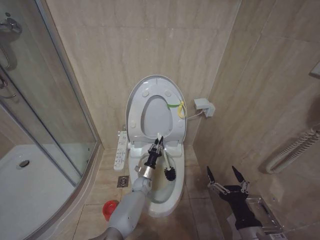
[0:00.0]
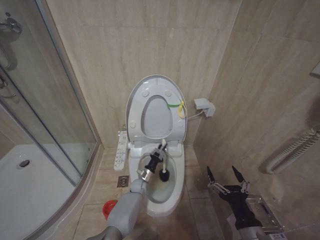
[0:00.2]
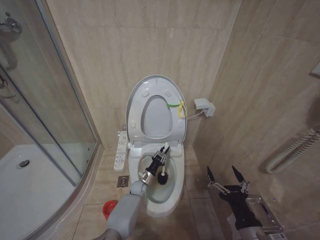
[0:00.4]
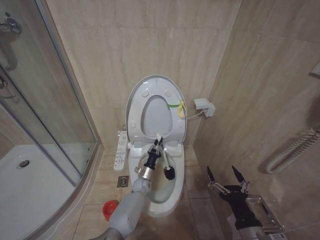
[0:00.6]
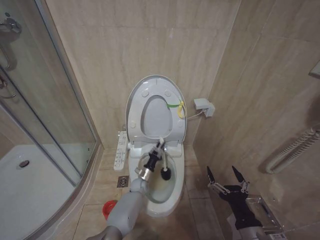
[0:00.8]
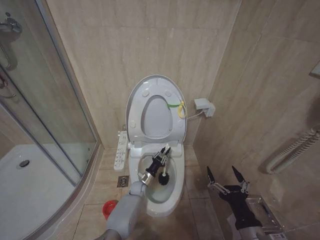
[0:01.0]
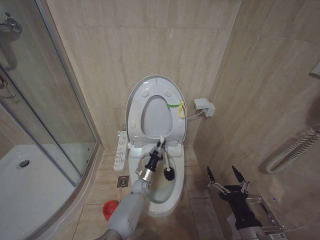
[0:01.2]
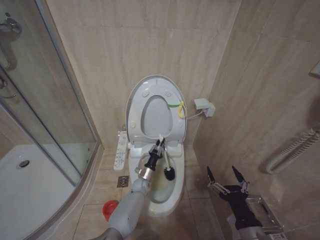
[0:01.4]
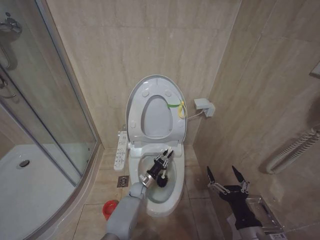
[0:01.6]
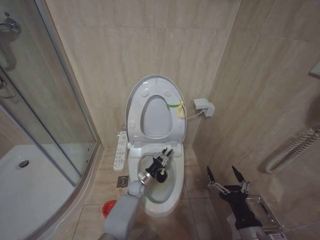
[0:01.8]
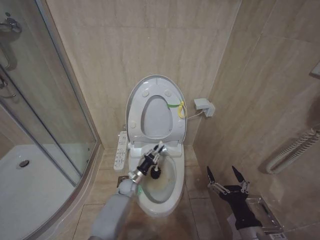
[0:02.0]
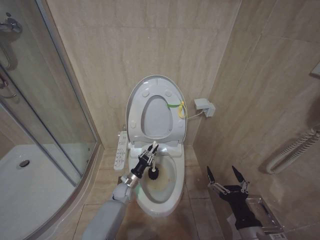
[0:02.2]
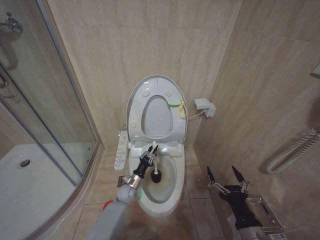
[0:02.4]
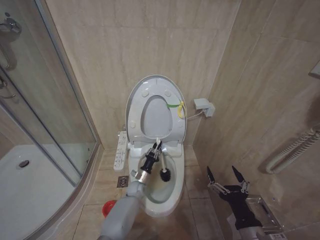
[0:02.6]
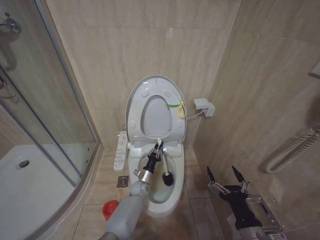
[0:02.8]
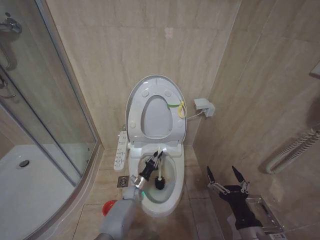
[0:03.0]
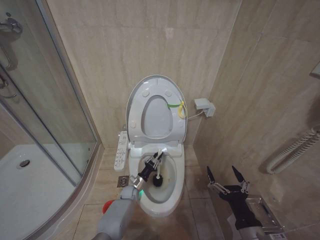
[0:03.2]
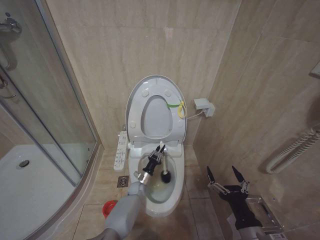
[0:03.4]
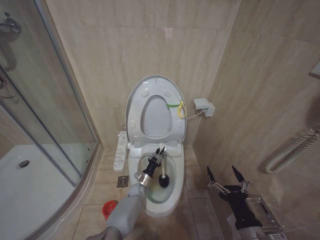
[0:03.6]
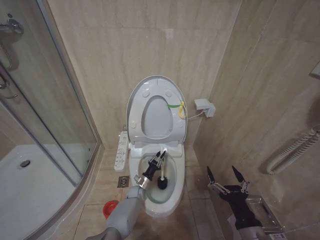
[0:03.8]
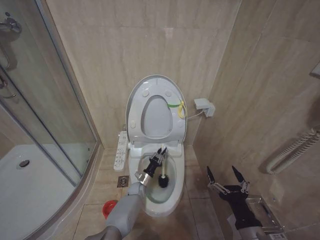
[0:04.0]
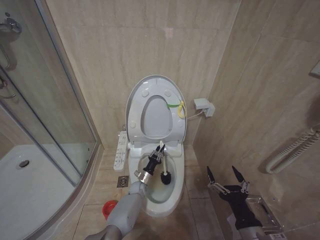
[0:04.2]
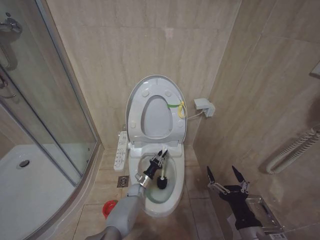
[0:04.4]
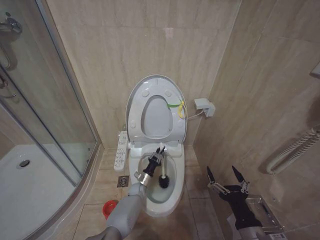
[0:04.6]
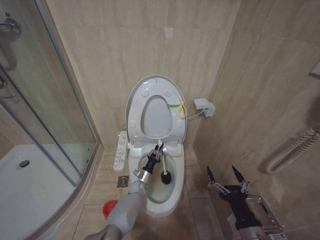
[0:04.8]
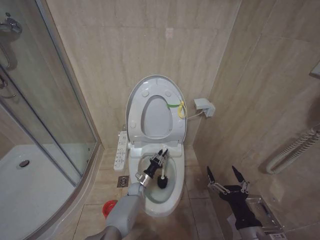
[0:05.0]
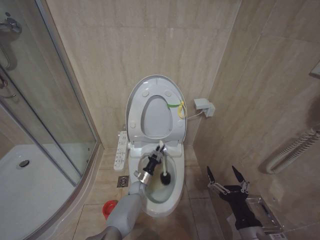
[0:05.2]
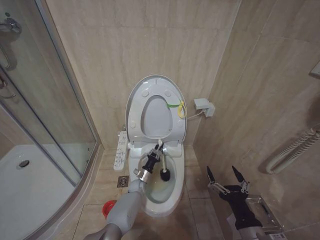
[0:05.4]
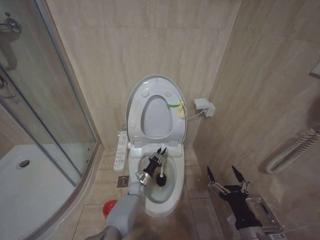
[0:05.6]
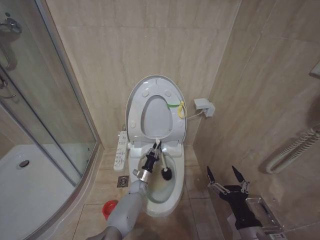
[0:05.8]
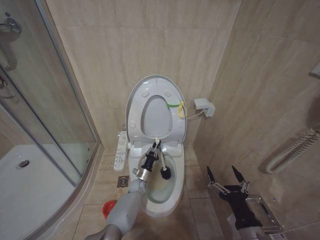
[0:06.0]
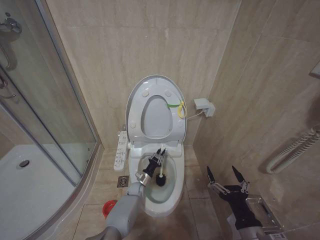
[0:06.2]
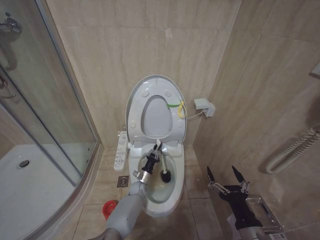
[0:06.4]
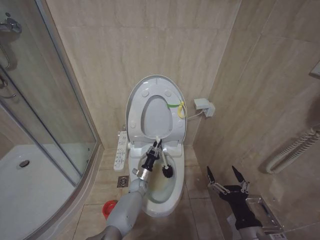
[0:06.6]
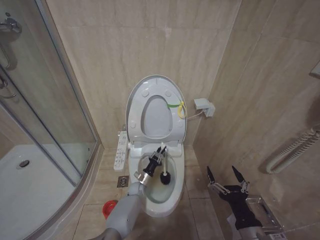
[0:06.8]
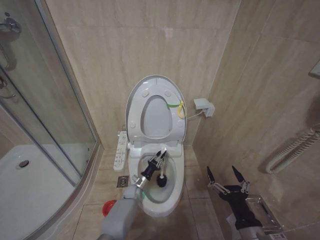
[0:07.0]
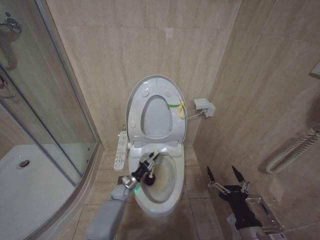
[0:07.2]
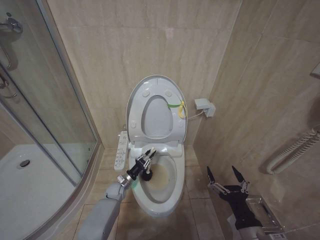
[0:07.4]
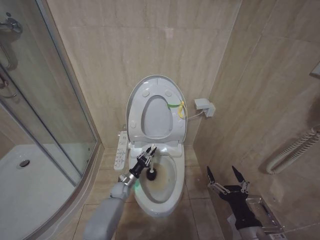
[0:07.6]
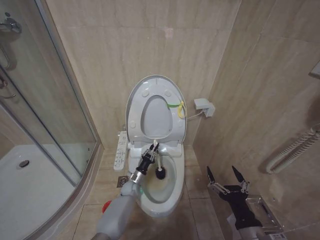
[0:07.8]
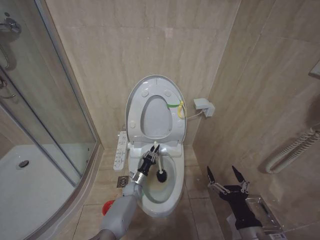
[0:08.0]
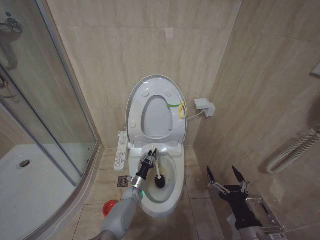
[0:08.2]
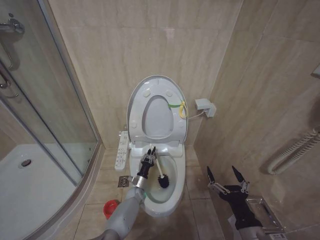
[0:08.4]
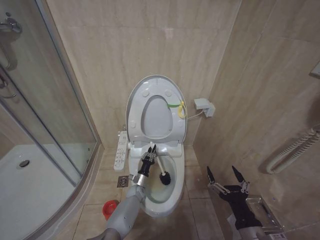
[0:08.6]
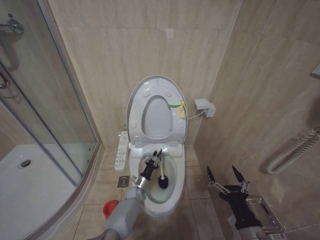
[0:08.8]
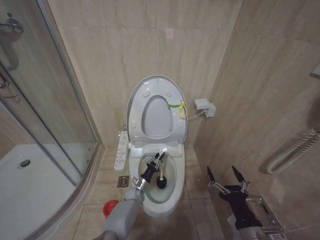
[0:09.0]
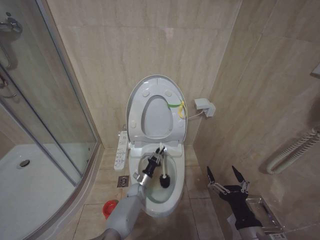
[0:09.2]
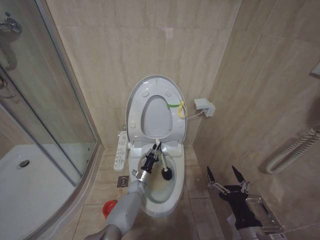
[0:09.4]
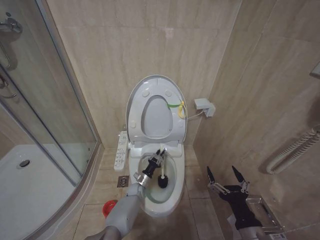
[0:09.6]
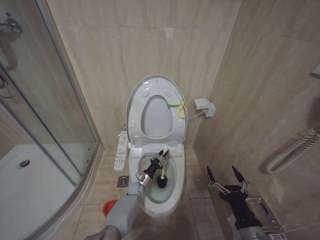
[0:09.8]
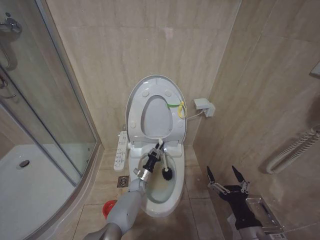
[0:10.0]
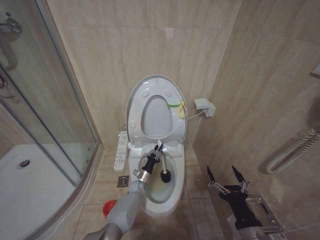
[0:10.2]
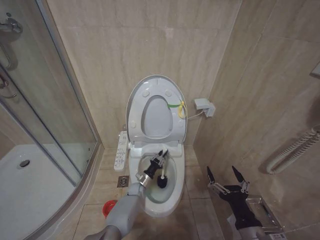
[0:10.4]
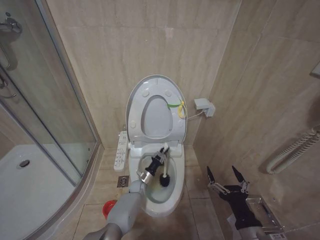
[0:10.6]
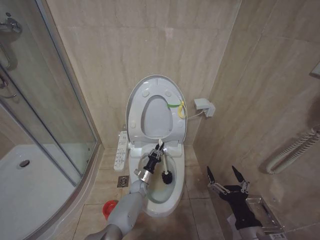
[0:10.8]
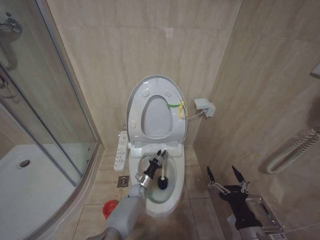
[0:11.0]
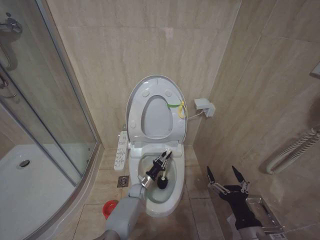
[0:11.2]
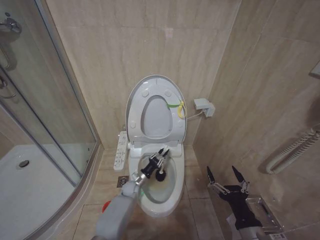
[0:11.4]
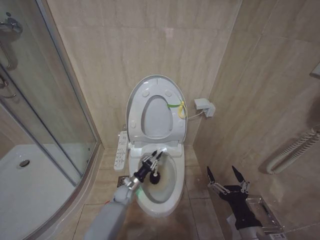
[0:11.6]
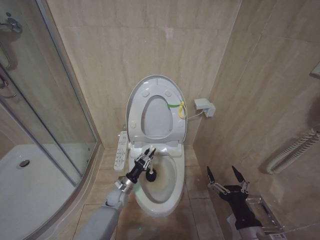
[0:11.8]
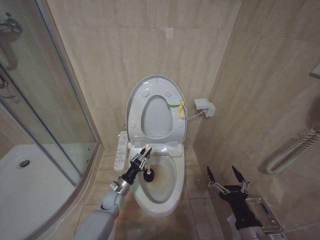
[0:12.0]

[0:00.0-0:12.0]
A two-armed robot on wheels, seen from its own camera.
Task of the whole recording: Open the toilet lid, clean the toilet bowl with a toilet brush, close the toilet lid, and flush.
0:00.0 to 0:01.6: There are only small adjustments of the grippers.
0:01.6 to 0:03.0: The left gripper goes to the left and returns, some 5 cm each way.
0:03.0 to 0:06.0: There are only small adjustments of the grippers.
0:06.0 to 0:07.6: The left gripper heads to the left, covering about 10 cm.
0:07.6 to 0:09.0: The left gripper heads to the right and downward, covering some 10 cm.
0:10.4 to 0:12.0: The left gripper moves to the left, upward and backward, approximately 15 cm.

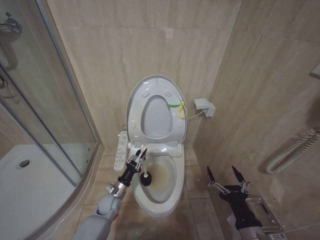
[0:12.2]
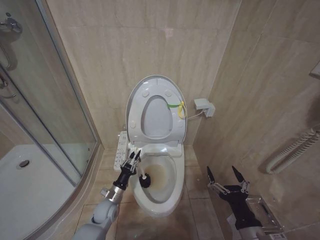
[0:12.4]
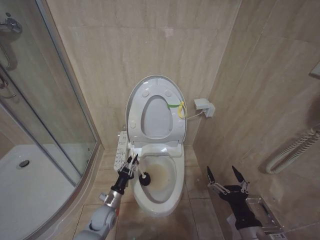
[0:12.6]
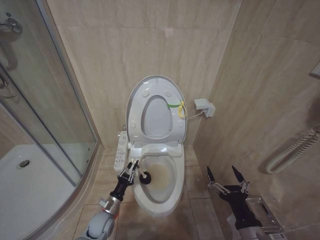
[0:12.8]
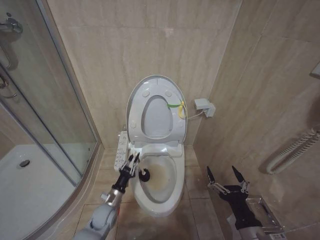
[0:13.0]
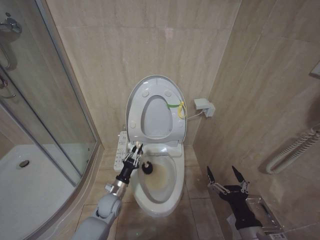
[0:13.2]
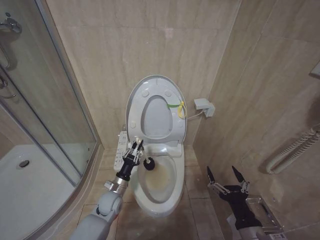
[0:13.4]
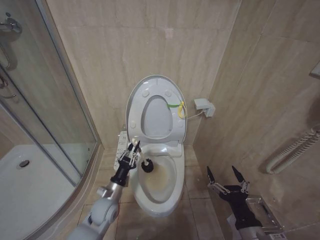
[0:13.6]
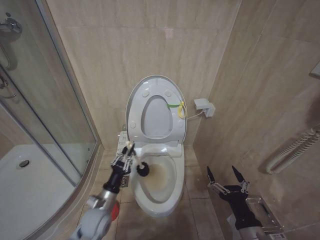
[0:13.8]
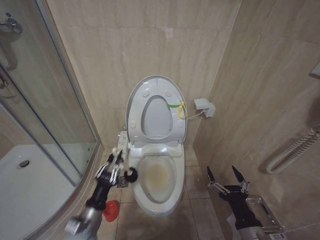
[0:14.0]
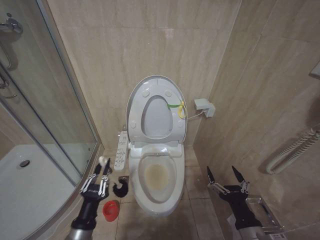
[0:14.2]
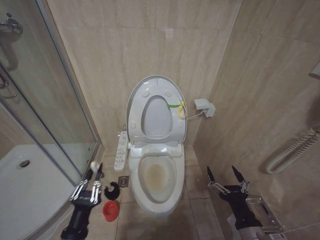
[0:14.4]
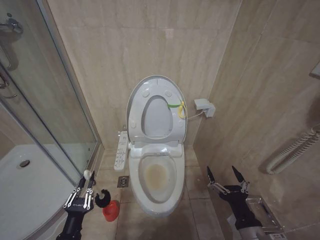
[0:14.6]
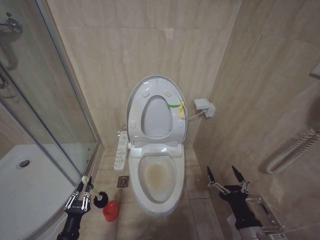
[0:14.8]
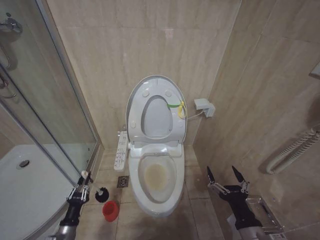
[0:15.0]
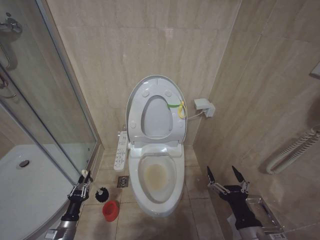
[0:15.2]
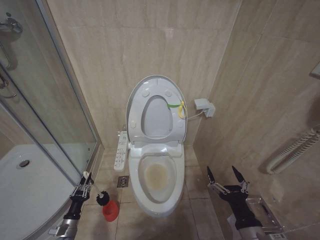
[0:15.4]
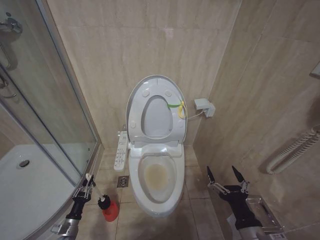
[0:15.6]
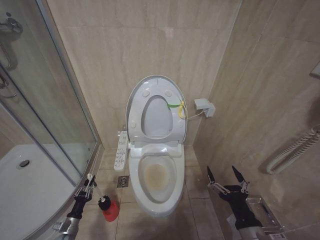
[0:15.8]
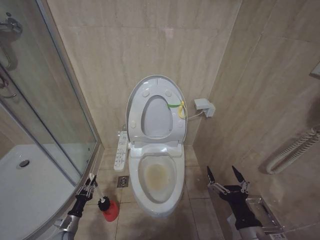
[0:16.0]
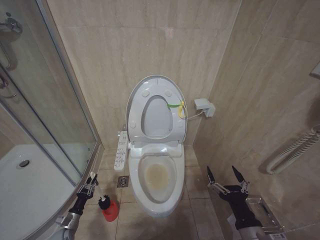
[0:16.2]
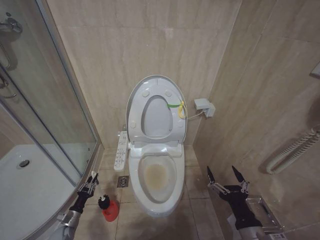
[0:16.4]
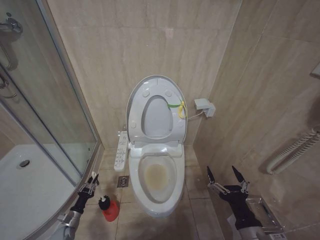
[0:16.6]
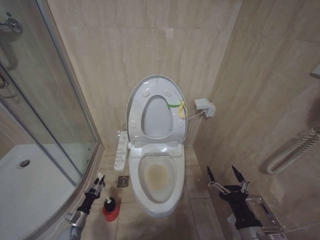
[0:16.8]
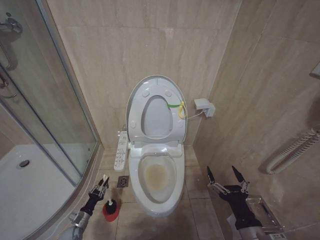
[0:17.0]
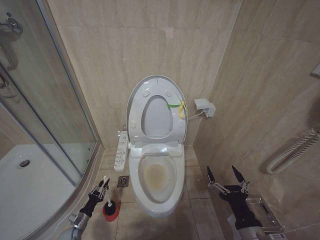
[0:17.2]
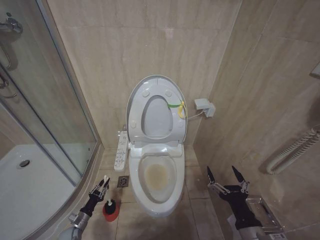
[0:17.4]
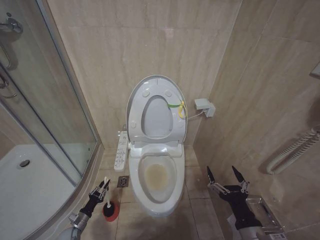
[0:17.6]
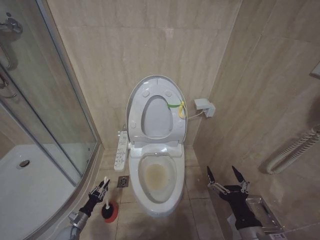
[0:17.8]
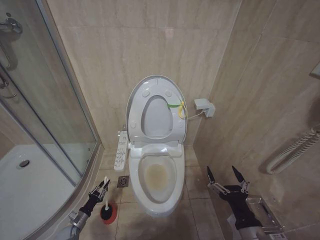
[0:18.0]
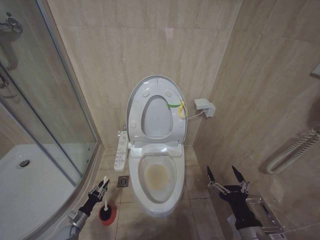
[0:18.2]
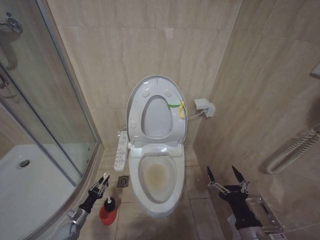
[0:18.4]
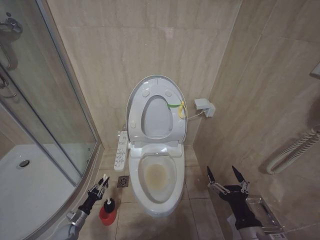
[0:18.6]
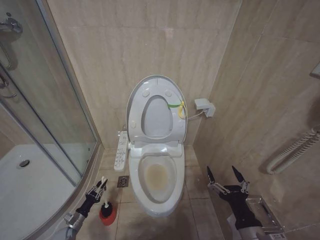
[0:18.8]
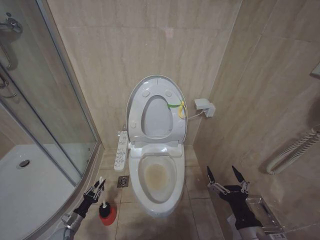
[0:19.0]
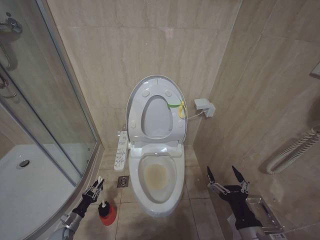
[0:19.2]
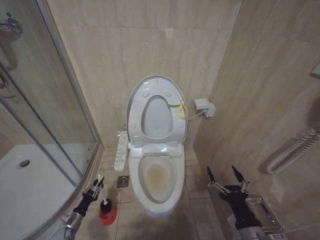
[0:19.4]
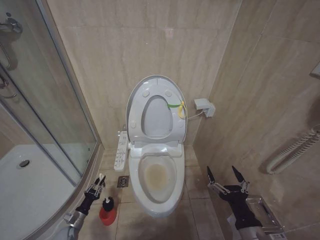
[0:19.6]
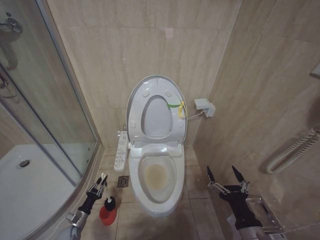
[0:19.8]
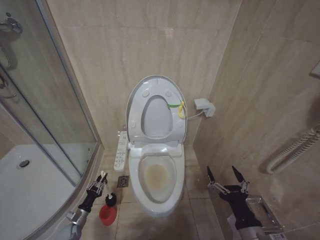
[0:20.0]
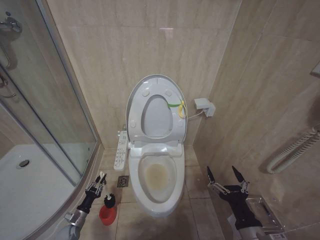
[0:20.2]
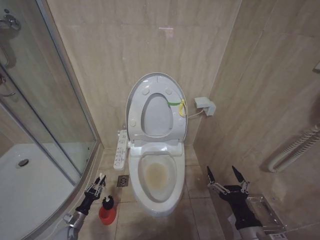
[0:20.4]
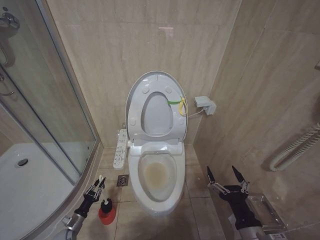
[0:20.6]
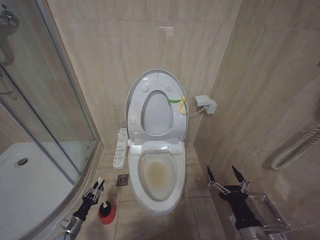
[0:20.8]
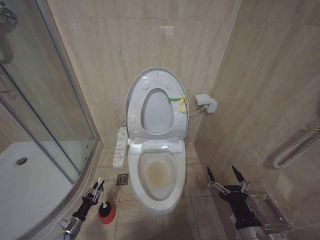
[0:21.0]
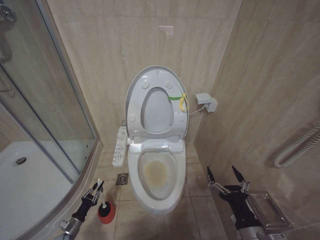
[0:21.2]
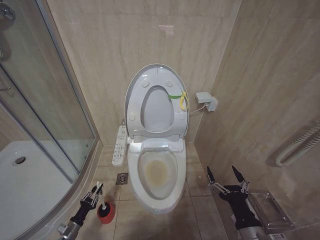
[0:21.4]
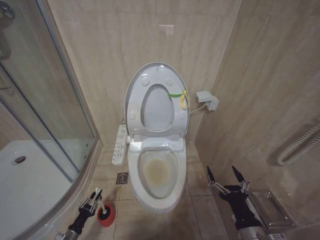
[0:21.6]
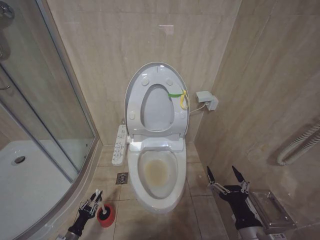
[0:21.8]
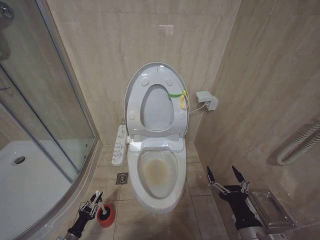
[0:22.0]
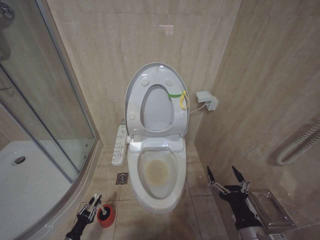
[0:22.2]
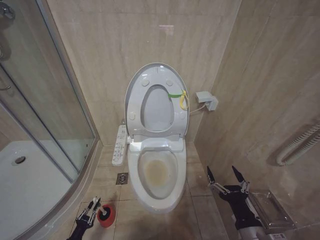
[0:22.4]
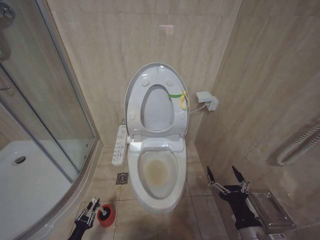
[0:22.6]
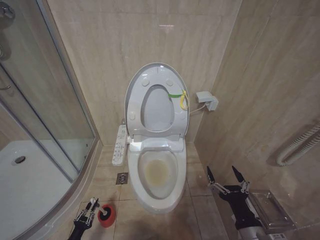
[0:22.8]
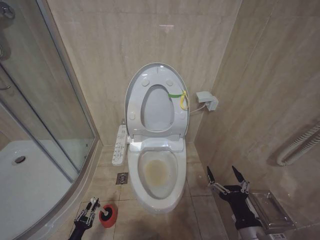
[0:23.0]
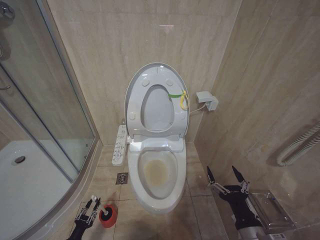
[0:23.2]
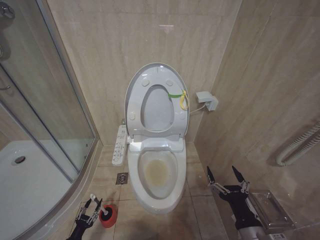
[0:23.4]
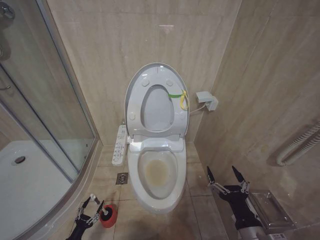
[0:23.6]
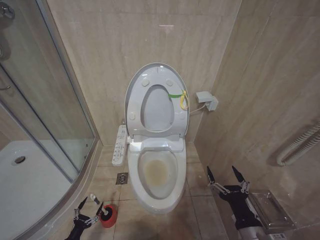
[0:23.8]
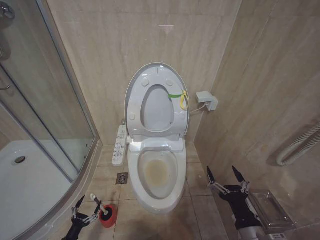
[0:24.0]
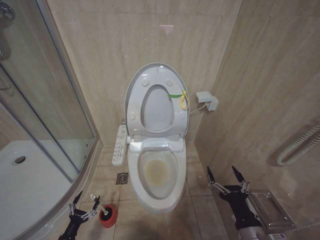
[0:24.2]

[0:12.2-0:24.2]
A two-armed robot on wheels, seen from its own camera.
Task of the whole recording: Open the toilet lid, clean the toilet bowl with a toilet brush, close the toilet lid, and flush.
0:12.2 to 0:13.8: The left gripper travels upward and backward by some 10 cm.
0:13.8 to 0:15.2: The left gripper travels to the left, downward and backward by approximately 20 cm.
0:15.2 to 0:16.6: The left gripper moves downward, forward and to the left, roughly 10 cm.
0:16.6 to 0:18.2: The grippers stay close to where they were, moving slightly.
0:19.8 to 0:21.2: The grippers make only small movements.
0:21.2 to 0:22.6: The left gripper shifts about 10 cm backward.
0:22.6 to 0:24.2: The left gripper opens up.
